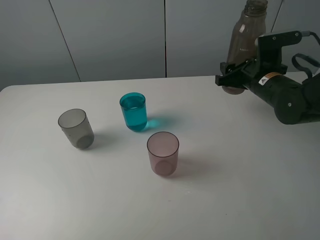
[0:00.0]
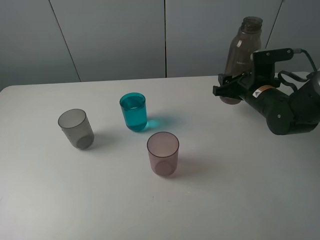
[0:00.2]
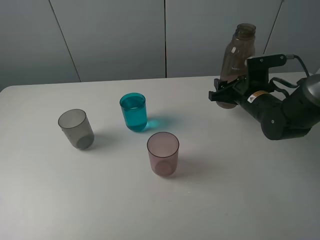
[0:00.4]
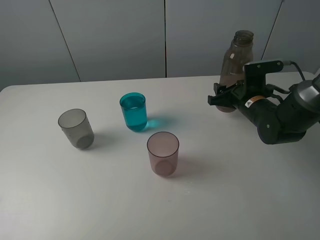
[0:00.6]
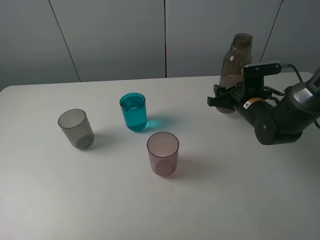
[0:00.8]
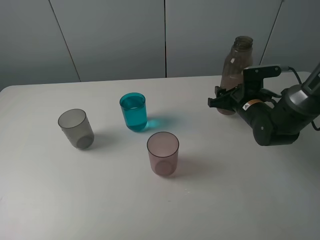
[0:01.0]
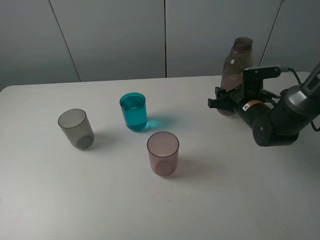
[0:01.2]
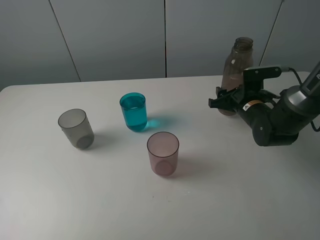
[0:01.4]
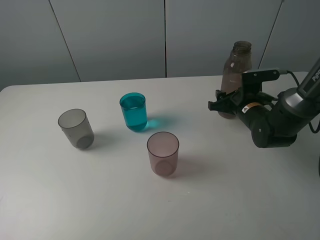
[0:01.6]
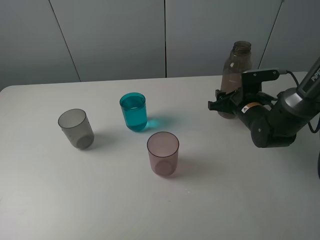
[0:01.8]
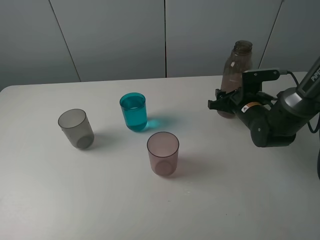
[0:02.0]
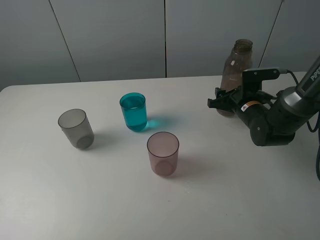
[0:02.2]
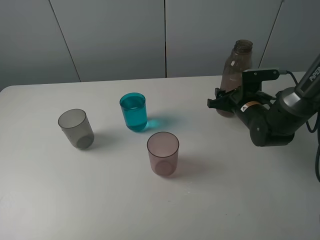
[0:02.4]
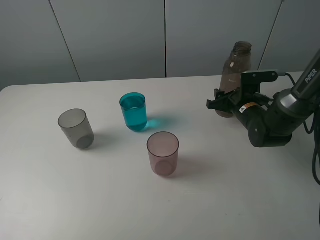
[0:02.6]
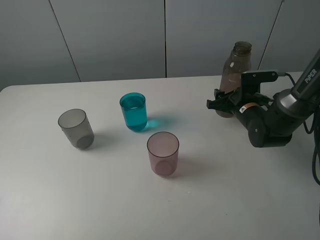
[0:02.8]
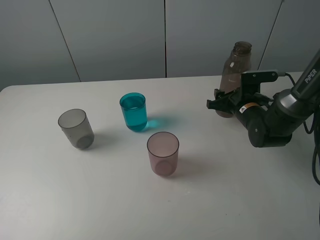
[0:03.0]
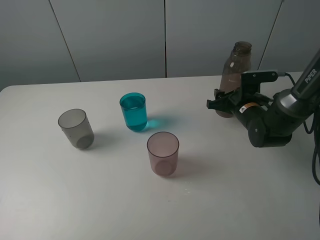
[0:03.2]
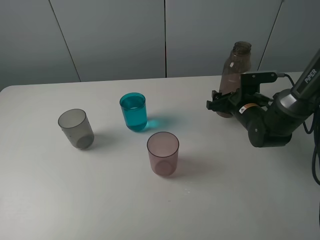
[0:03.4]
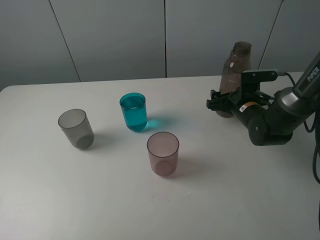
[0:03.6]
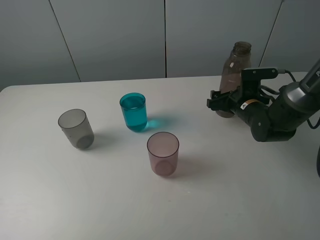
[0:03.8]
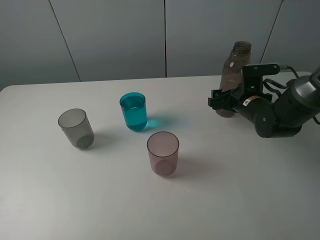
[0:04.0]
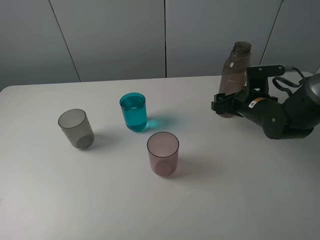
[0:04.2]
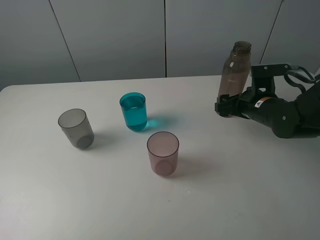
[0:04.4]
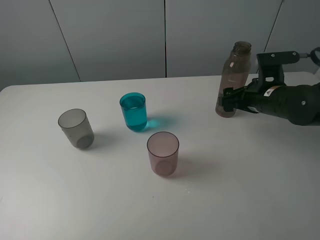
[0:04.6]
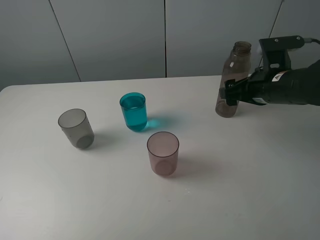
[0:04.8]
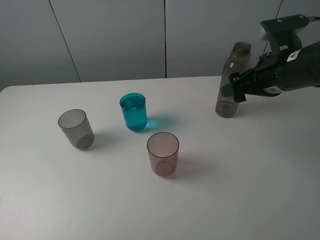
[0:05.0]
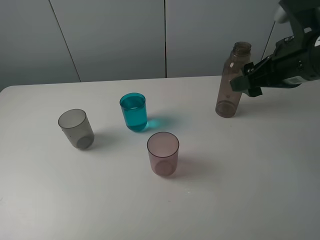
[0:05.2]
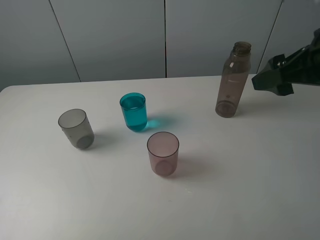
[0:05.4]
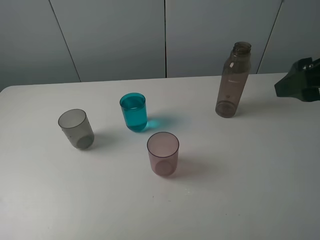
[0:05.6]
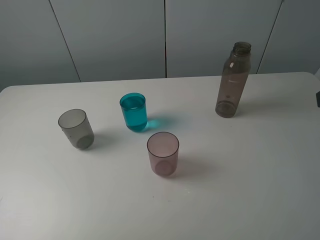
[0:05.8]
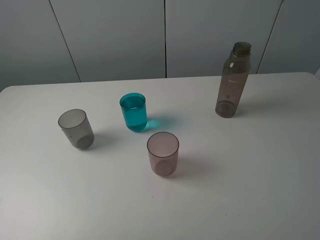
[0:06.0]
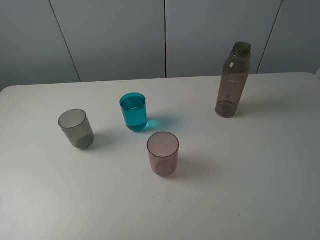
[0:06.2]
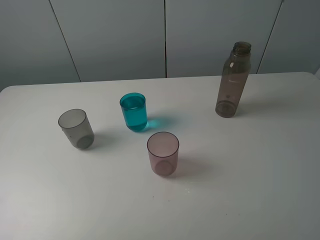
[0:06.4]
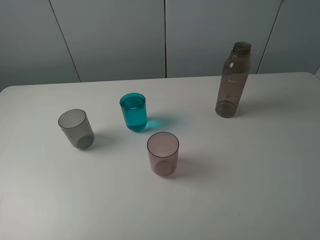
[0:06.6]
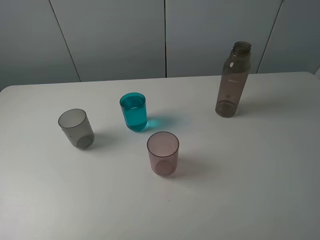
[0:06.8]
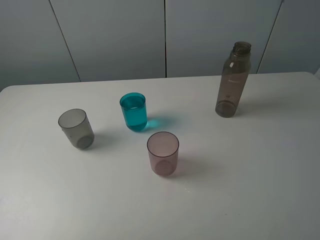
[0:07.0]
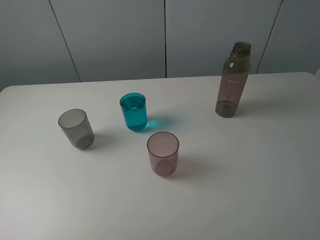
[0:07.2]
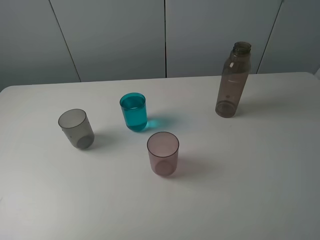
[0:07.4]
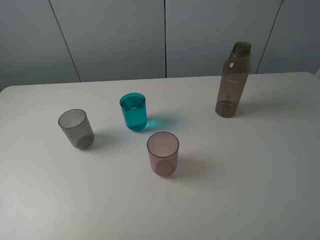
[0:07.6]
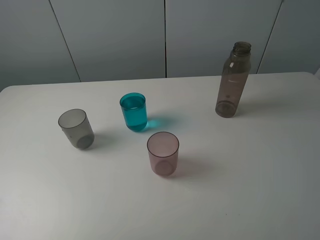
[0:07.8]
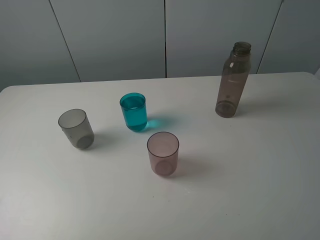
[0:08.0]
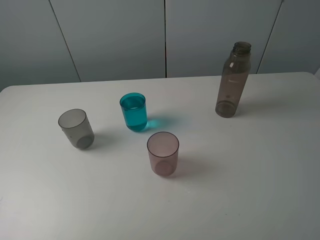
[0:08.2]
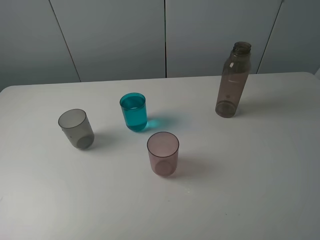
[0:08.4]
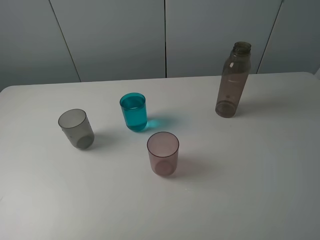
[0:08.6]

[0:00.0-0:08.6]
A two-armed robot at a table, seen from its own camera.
Task of the whole recording: pick up the bottle filled with water and pour water into the middle cup of the three cups.
Step, 0:00.0 to 0:04.8: Place the transparent bottle with the right gripper.
0:00.0 to 0:01.4: The right gripper is displaced downward by about 5 cm.
0:01.4 to 0:02.8: Neither gripper changes place.
0:02.8 to 0:04.4: The right gripper ends up some 5 cm from where it was, and opens its fingers.
0:04.4 to 0:05.8: The right gripper moves upward and backward, some 30 cm.
0:07.2 to 0:08.6: Both grippers stay put.
